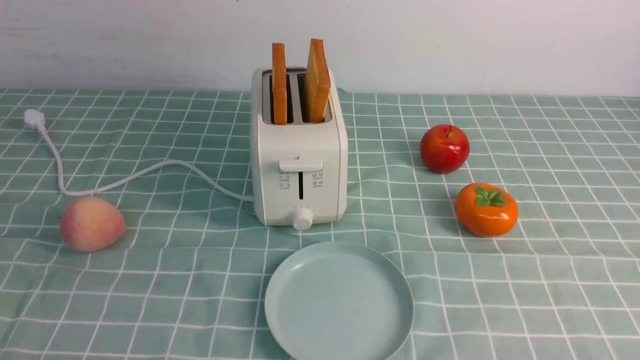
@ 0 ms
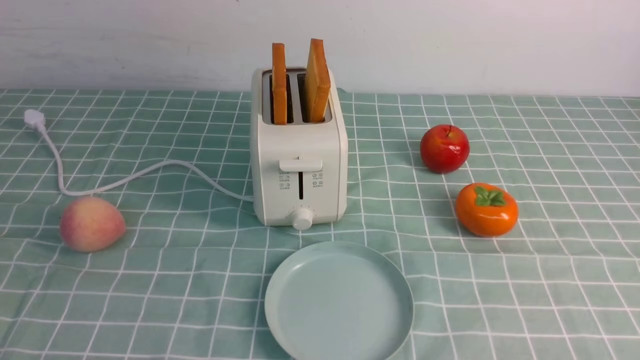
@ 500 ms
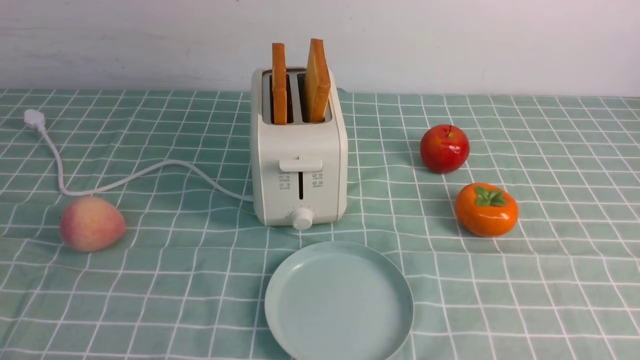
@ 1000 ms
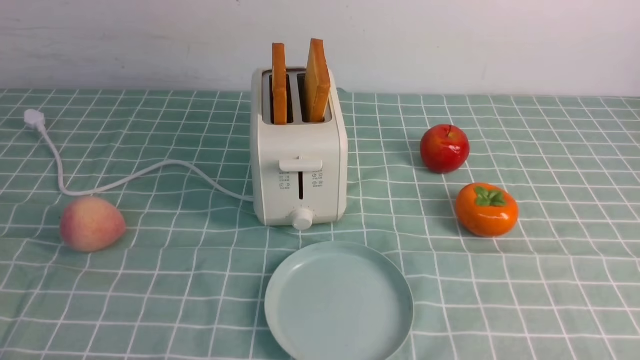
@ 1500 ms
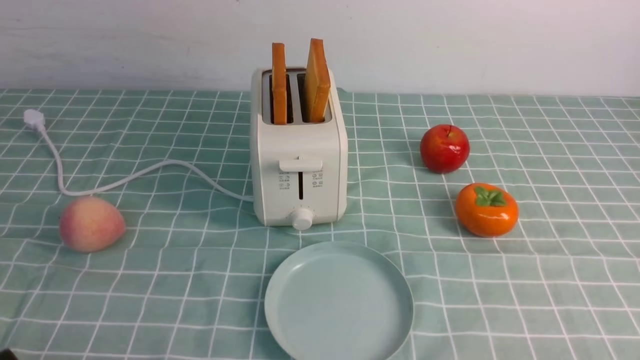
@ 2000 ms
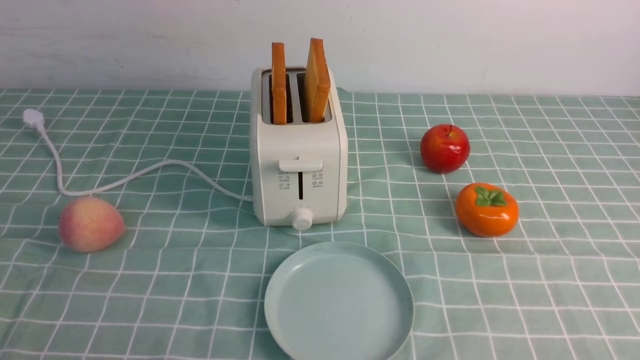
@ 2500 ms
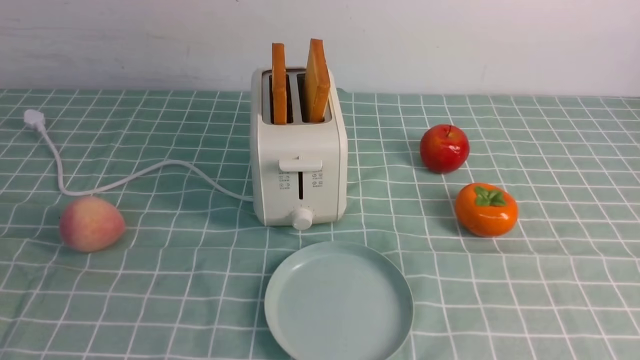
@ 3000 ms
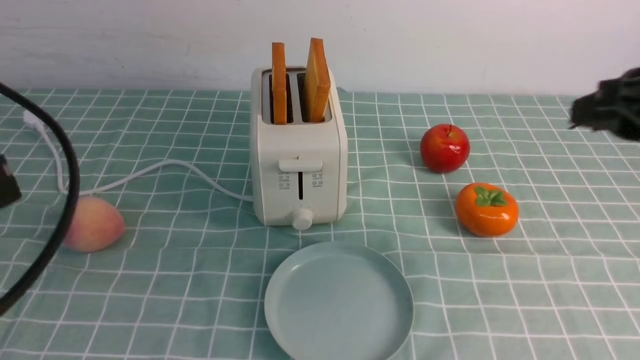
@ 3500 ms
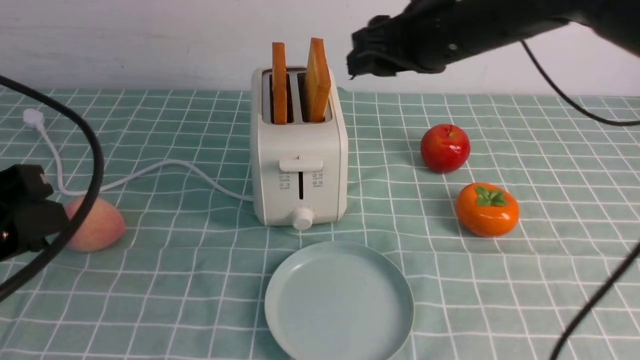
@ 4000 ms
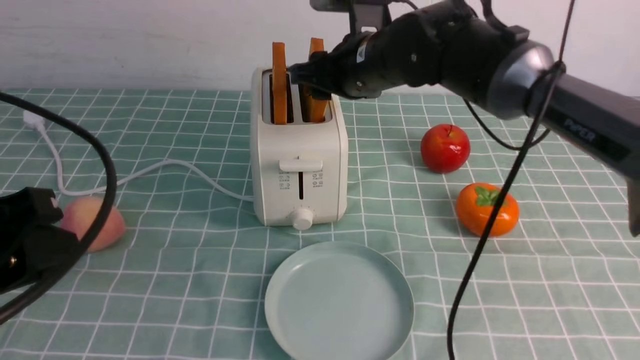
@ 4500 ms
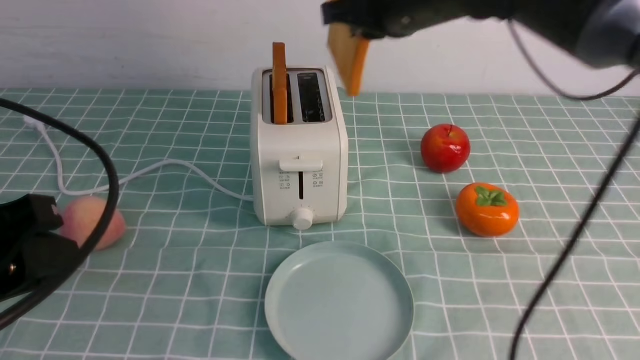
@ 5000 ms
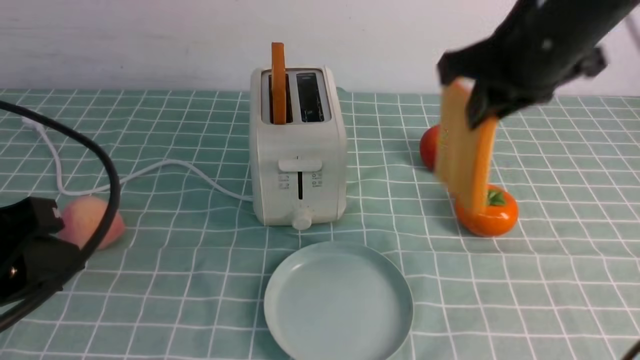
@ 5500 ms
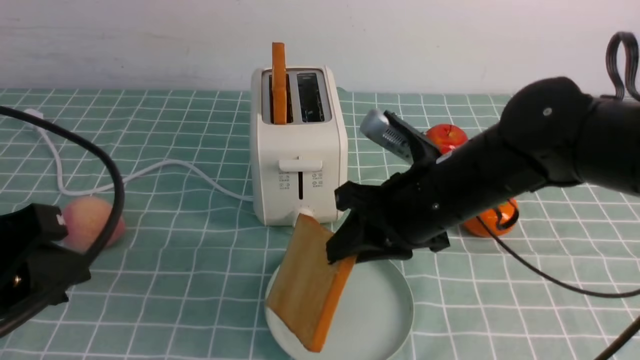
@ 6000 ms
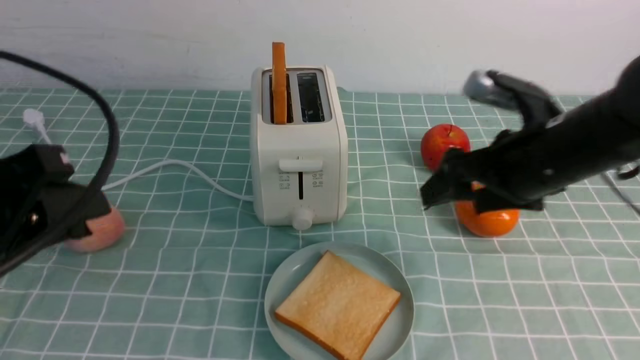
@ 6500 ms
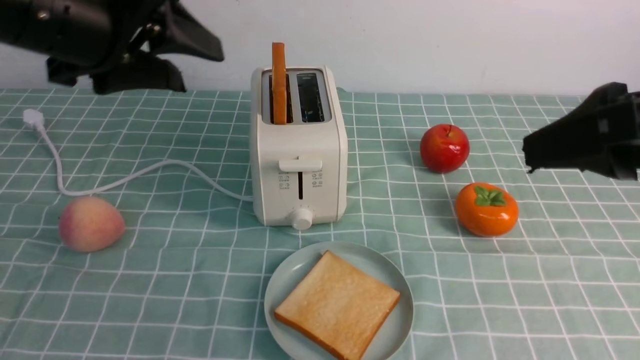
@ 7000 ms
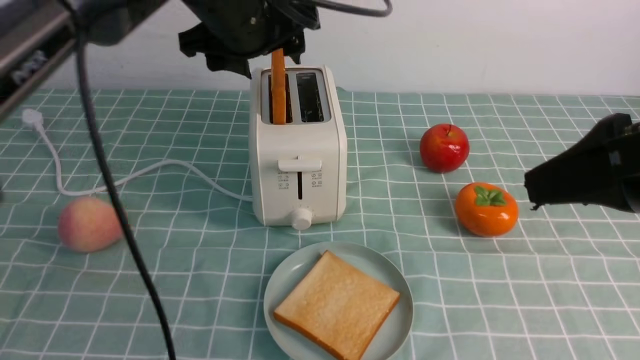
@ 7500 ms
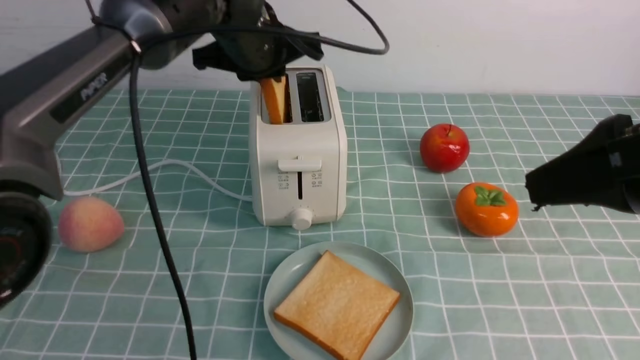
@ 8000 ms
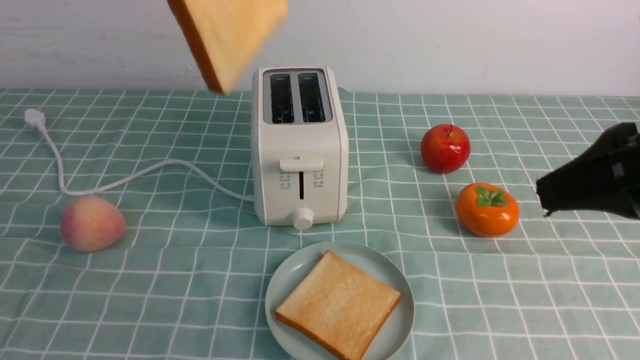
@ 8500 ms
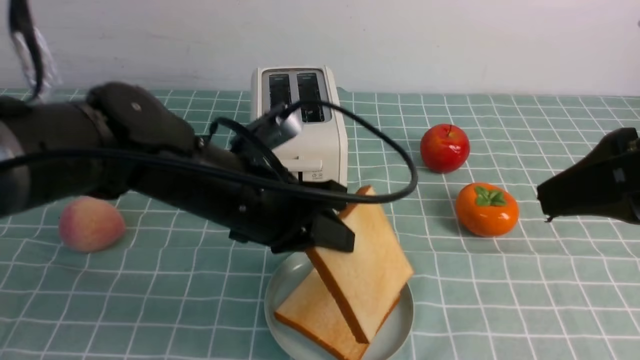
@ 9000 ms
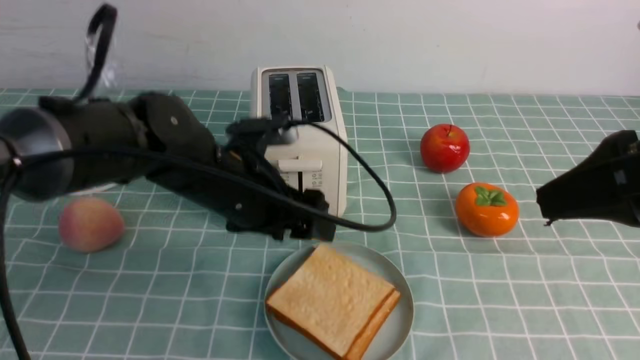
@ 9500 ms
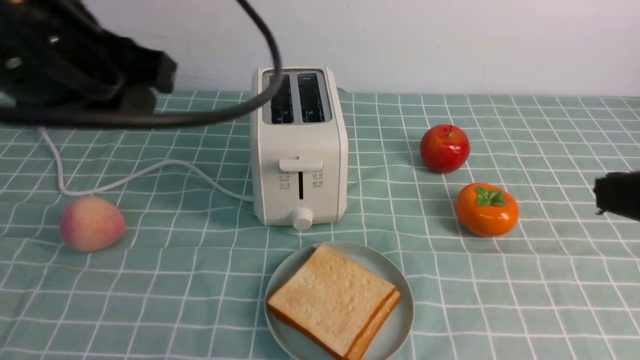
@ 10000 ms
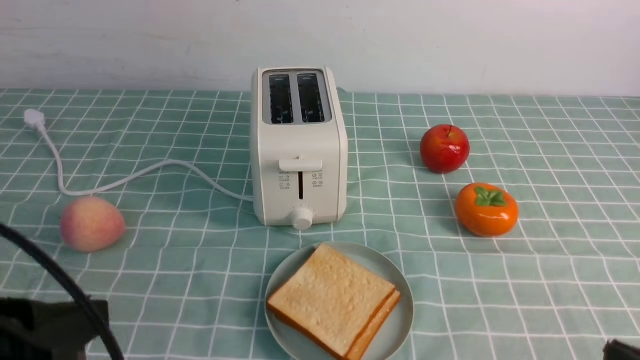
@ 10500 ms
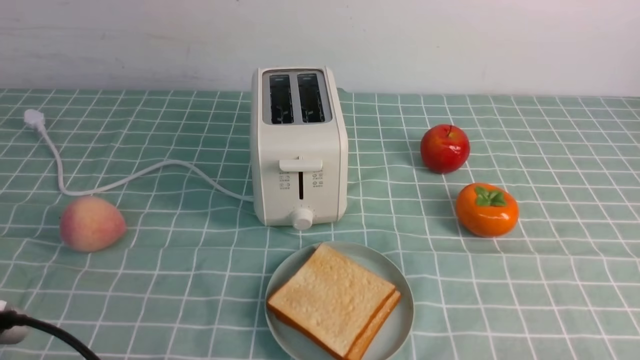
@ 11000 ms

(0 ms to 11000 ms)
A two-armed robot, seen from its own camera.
Task of the whole recording: take toasted bread from bread machine on blue coffee table place on plate.
Step, 0 ms - 5000 ms: use the right arm to take out a slice of bread.
Step, 5500 ms - 6500 ms: use the right arm to put a slice of bread into the plate.
Step, 7000 ms - 8000 ms: use the left arm to take out a slice of bread.
Step, 8500 ms - 9500 ms: use the left arm to put a slice of bread into the empty plate.
2000 ms - 3500 ms: The left gripper shifts some 20 cm upward and forward, while the right gripper heads forward and upward, covering about 30 cm.
3500 ms - 5500 ms: The right gripper goes roughly 15 cm to the left and forward.
5500 ms - 7500 ms: The right gripper goes roughly 15 cm backward and to the right, and opens its fingers, while the left gripper goes about 30 cm forward and to the right, and opens up.
7500 ms - 9000 ms: The left gripper heads backward and downward, covering approximately 15 cm, and closes.
9000 ms - 11000 ms: The left gripper heads backward and to the left, covering some 25 cm, and opens and closes again, while the right gripper travels downward and backward by approximately 25 cm, and closes up.
